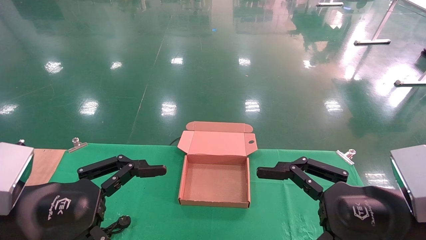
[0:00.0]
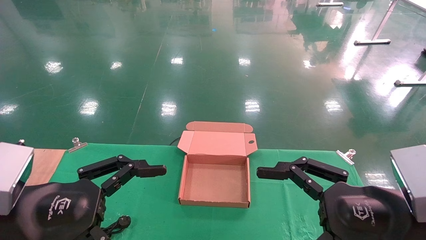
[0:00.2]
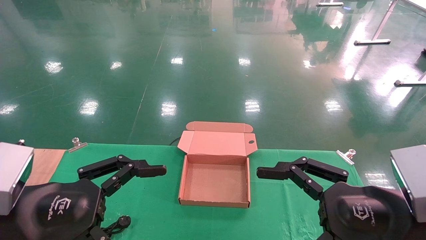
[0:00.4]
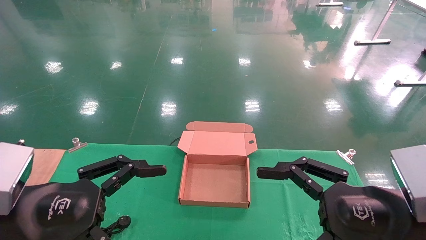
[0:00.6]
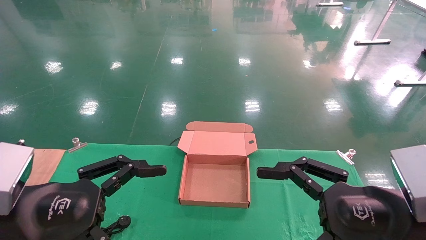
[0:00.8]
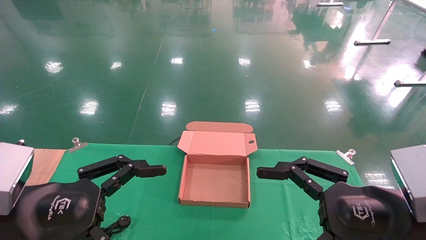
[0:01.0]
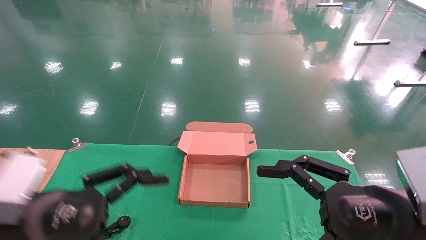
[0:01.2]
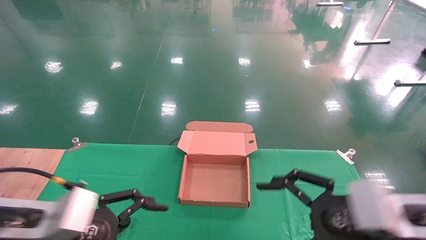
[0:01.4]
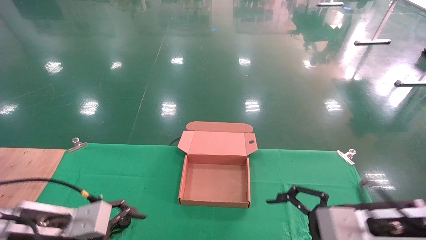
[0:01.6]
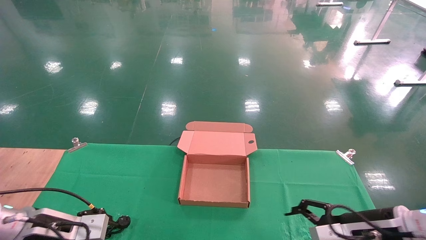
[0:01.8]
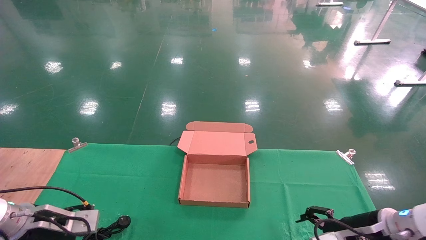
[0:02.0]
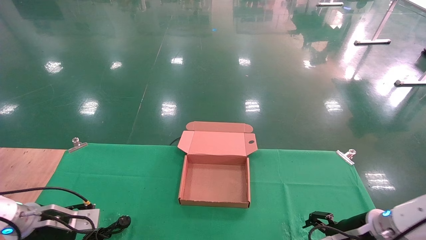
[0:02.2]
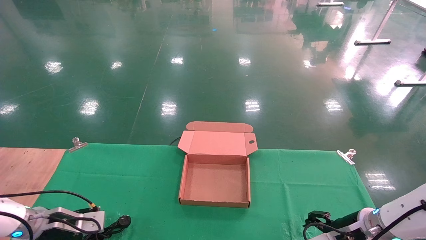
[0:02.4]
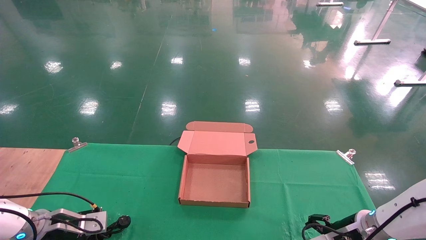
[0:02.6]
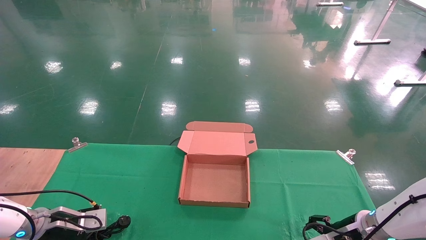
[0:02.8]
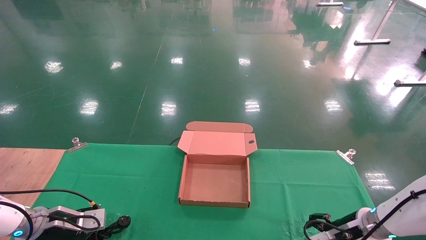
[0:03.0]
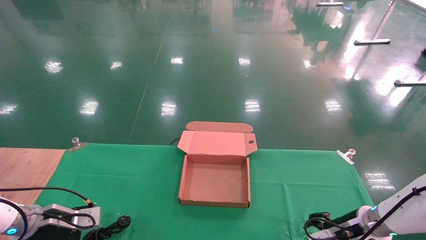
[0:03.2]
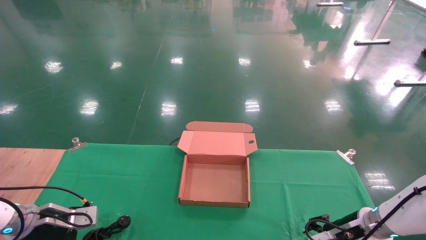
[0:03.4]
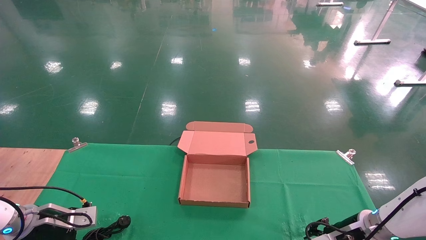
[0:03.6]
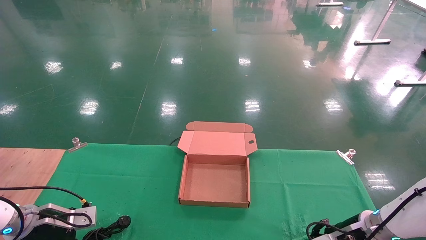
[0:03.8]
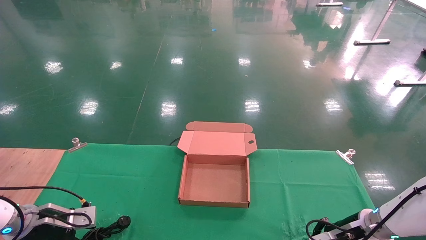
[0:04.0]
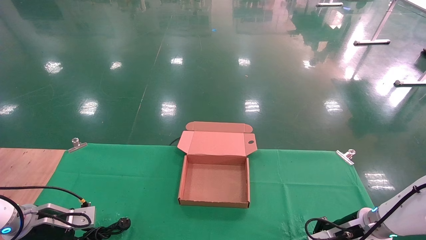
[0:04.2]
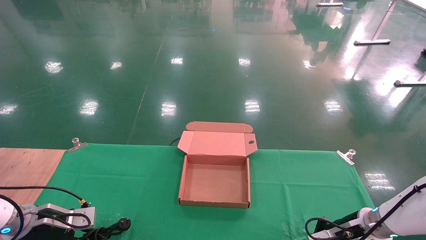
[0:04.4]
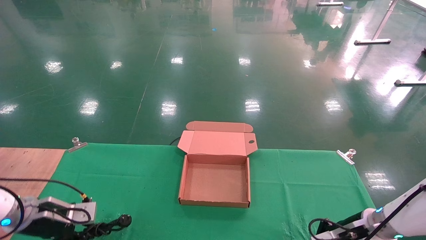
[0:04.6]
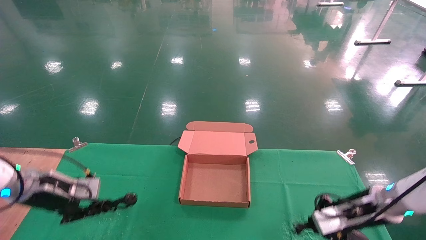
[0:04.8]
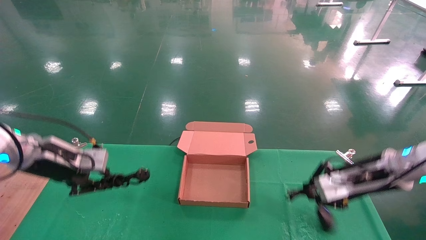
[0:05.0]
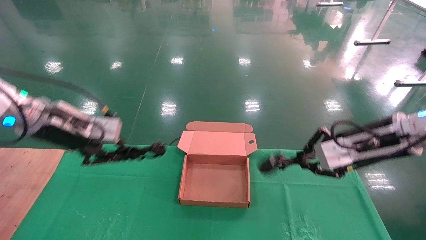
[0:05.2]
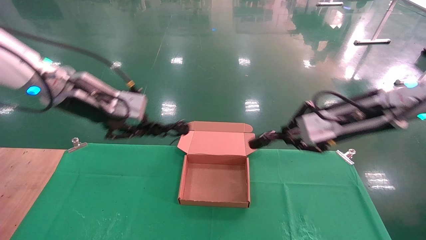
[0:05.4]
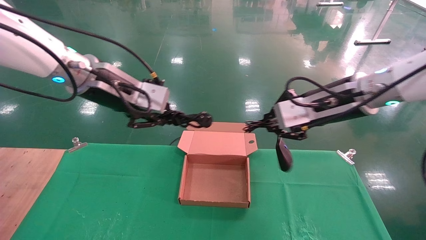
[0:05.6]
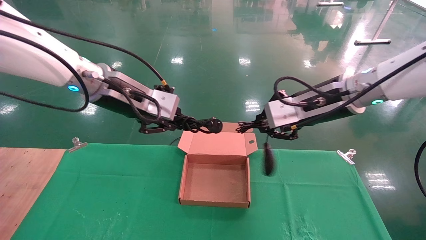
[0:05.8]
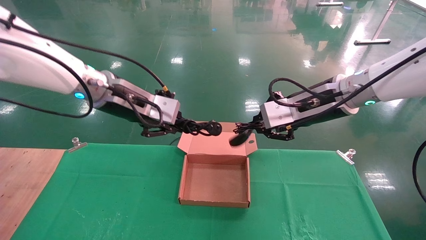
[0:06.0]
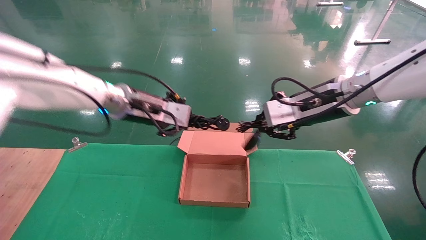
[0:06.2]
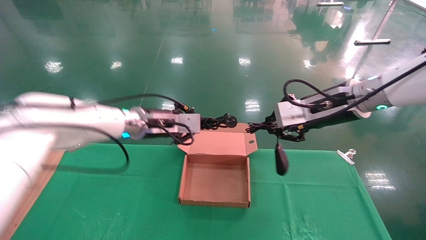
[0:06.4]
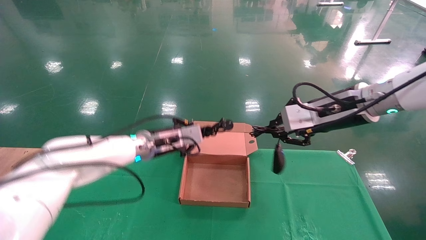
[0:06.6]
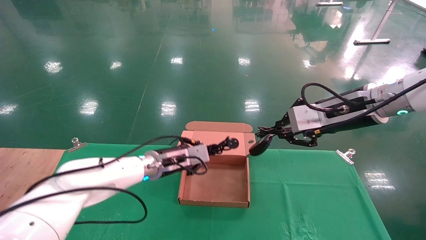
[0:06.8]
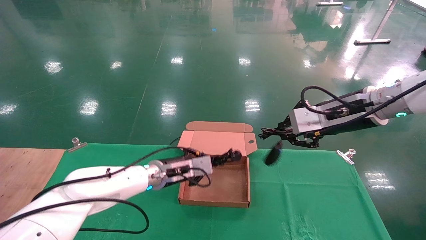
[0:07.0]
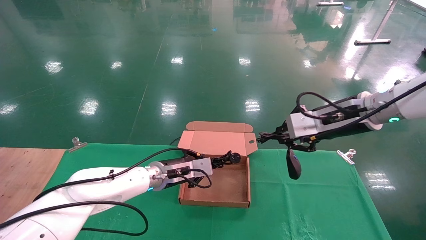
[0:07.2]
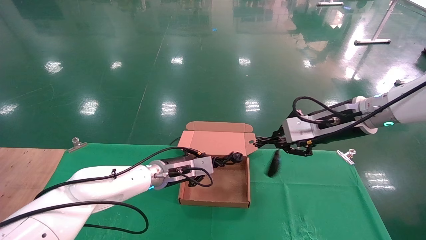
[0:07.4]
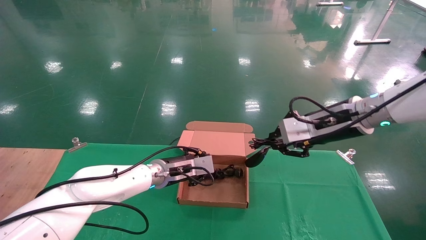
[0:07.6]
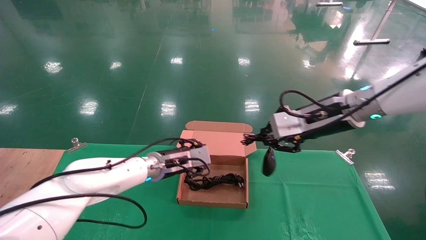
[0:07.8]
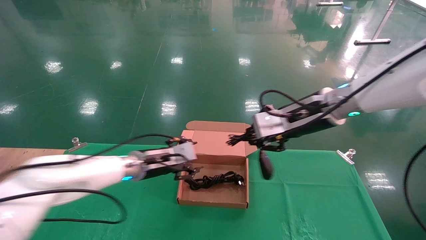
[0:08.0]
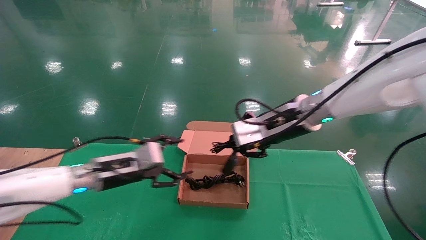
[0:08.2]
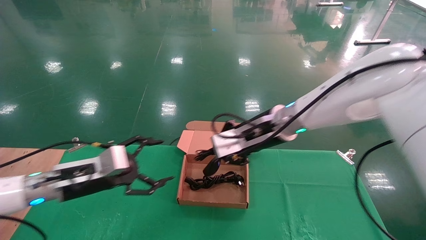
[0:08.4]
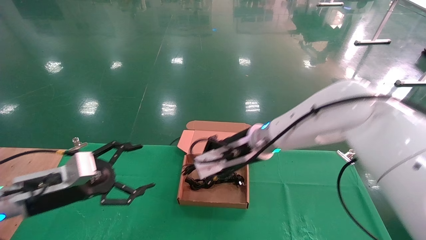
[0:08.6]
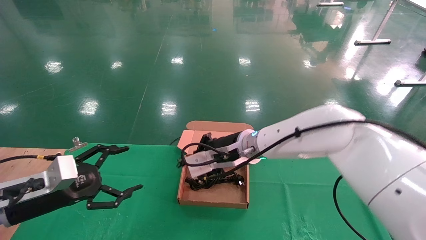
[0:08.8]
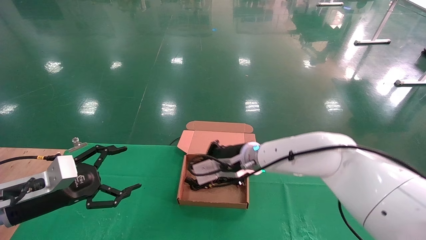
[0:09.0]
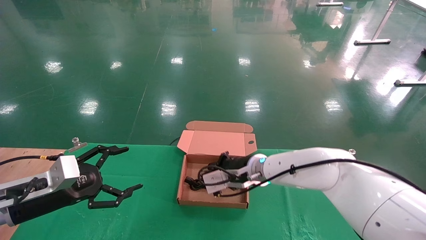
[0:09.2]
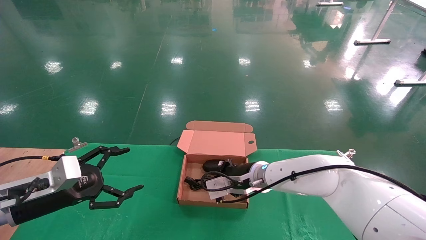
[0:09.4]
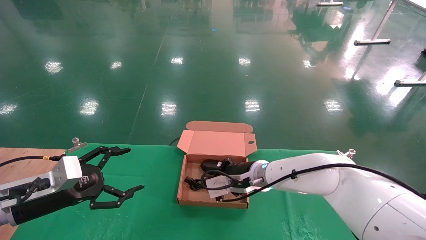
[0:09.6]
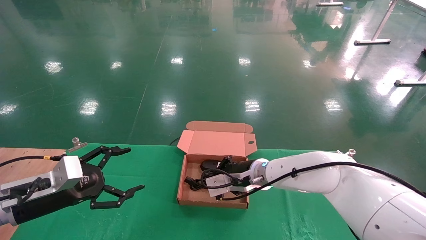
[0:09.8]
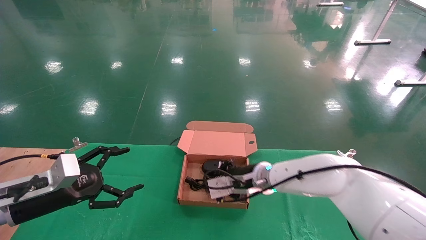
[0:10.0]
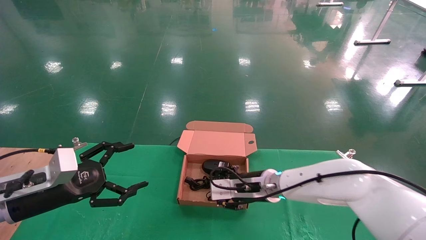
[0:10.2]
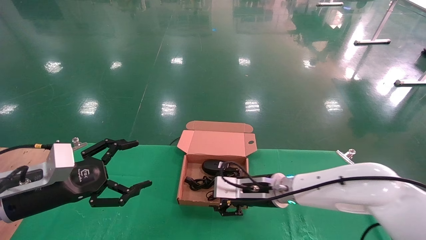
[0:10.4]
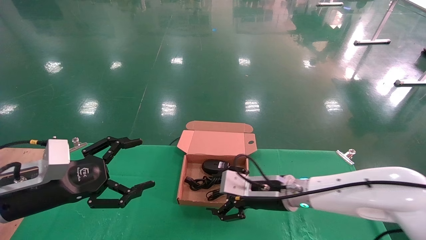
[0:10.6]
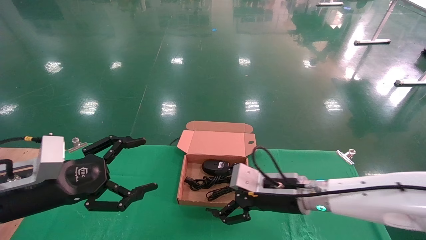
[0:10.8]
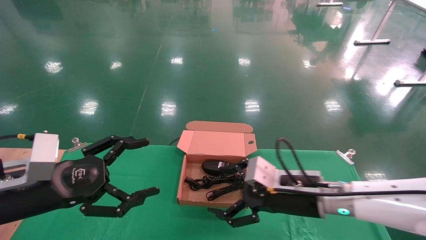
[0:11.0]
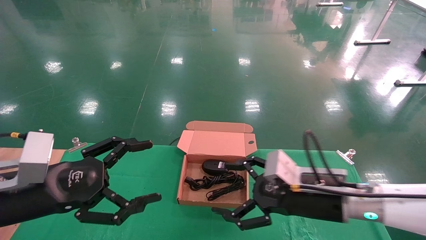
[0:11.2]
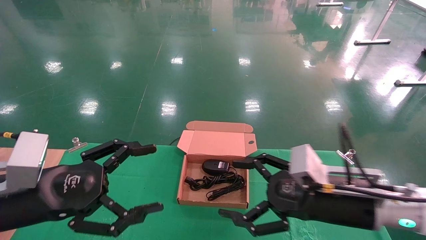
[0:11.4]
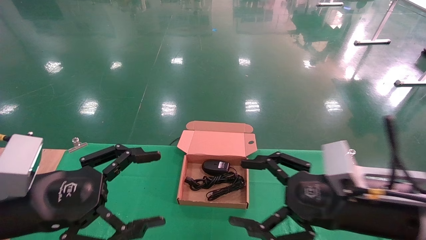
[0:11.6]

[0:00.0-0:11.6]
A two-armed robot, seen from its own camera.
Step, 0:01.2 to 0:04.2: Grab and lift both the mouse and power cord from the accessory packaging area at the same time.
Step, 0:04.4 to 0:08.8: Place the mouse and power cord into the box.
0:00.0 to 0:01.4: The left gripper shifts by approximately 5 cm.
0:01.4 to 0:02.8: The right gripper travels forward and downward by some 20 cm. Meanwhile the left gripper shifts roughly 25 cm forward, downward and to the left.
0:02.8 to 0:04.4: The left gripper closes, while the right gripper closes its fingers.
0:04.4 to 0:05.8: The left gripper goes approximately 35 cm upward and to the right; the right gripper shifts roughly 30 cm upward.
0:05.8 to 0:07.2: The right gripper moves roughly 5 cm. The left gripper heads downward and forward, covering approximately 25 cm.
0:07.2 to 0:08.8: The left gripper travels to the left and backward by roughly 25 cm, and opens. The right gripper shifts about 20 cm to the left and downward.
0:08.8 to 0:10.2: The right gripper travels downward by some 10 cm, and opens.
0:10.2 to 0:11.6: The left gripper heads backward, upward and to the right, covering about 15 cm, while the right gripper shifts approximately 25 cm backward, to the right and upward, and opens its fingers.

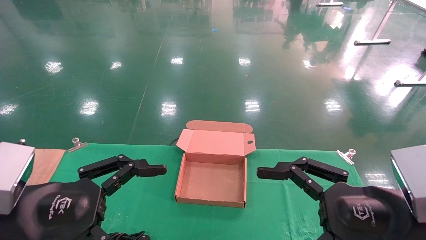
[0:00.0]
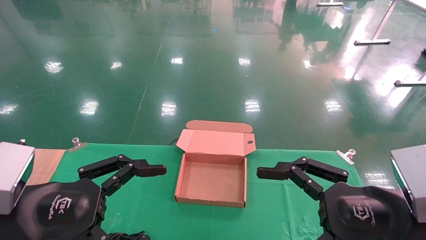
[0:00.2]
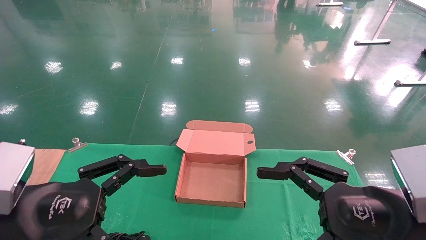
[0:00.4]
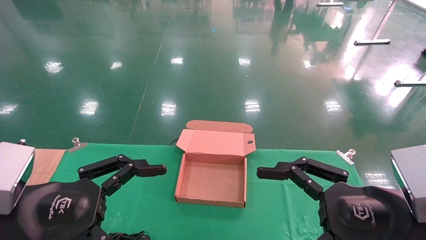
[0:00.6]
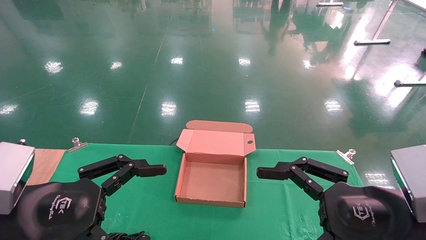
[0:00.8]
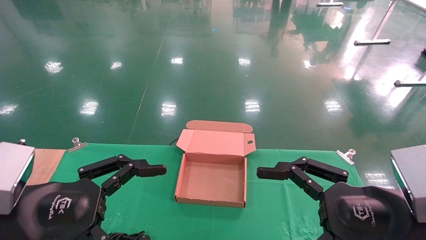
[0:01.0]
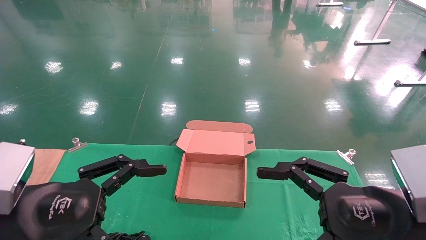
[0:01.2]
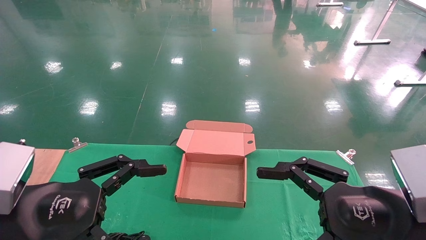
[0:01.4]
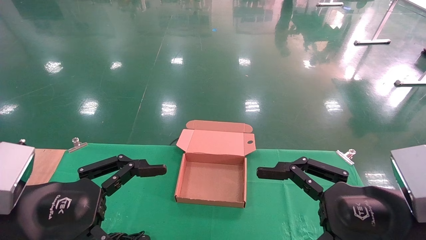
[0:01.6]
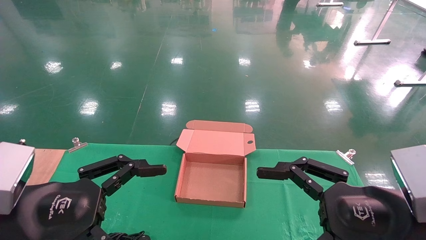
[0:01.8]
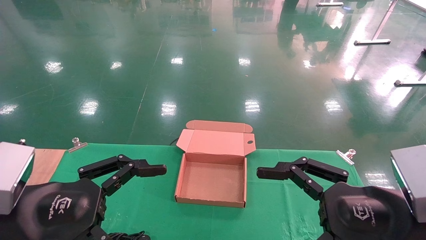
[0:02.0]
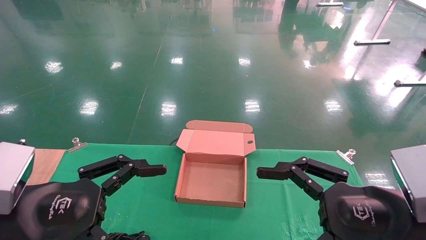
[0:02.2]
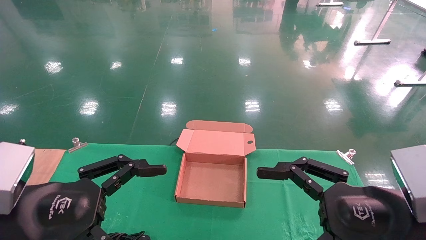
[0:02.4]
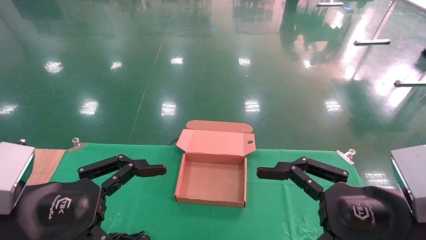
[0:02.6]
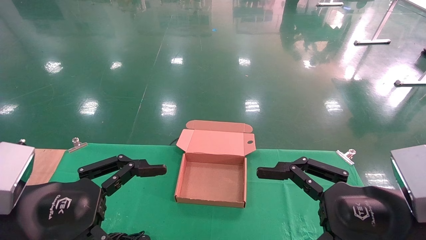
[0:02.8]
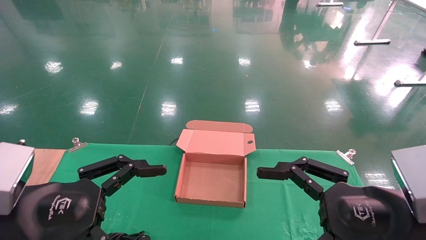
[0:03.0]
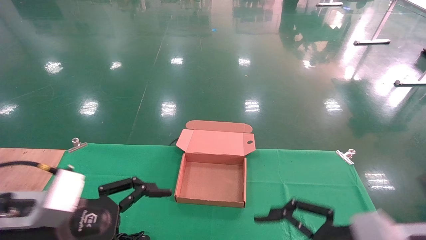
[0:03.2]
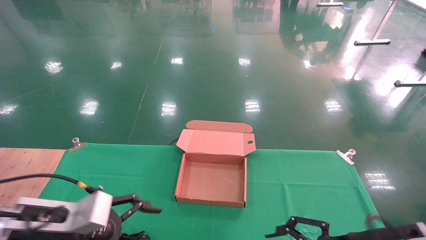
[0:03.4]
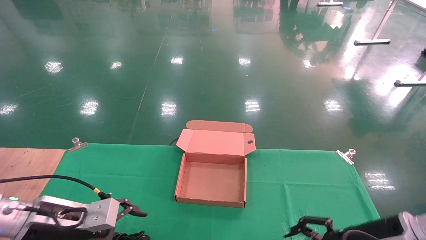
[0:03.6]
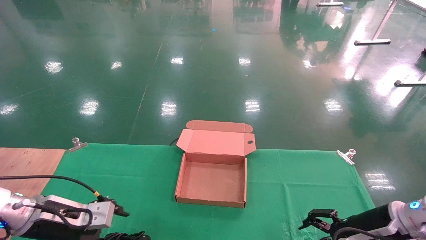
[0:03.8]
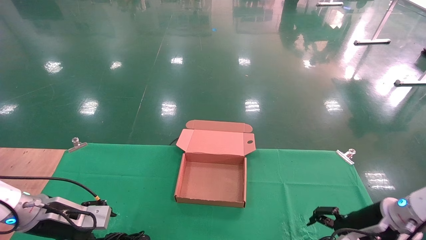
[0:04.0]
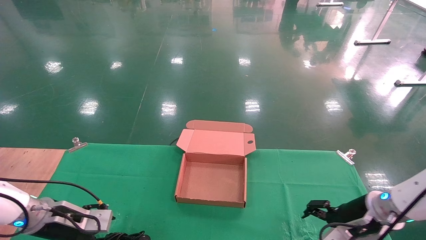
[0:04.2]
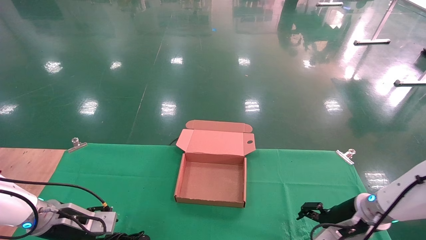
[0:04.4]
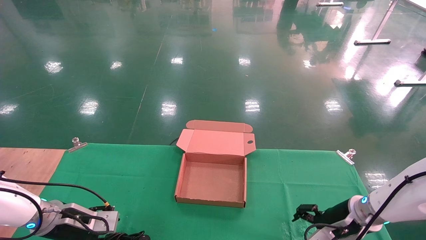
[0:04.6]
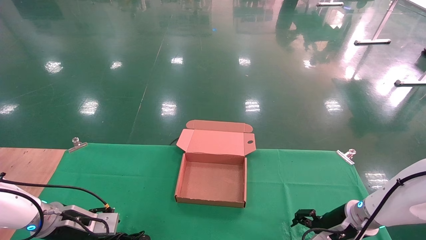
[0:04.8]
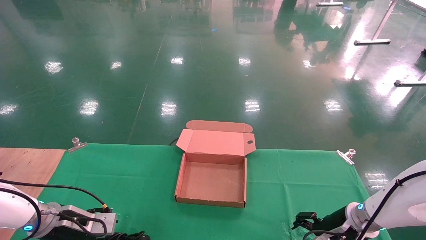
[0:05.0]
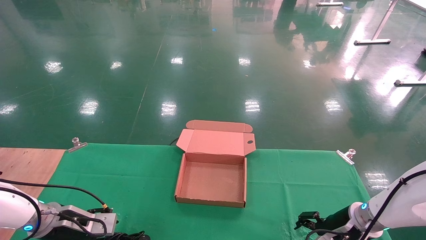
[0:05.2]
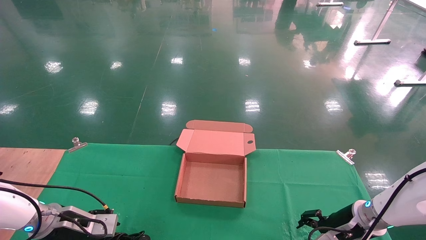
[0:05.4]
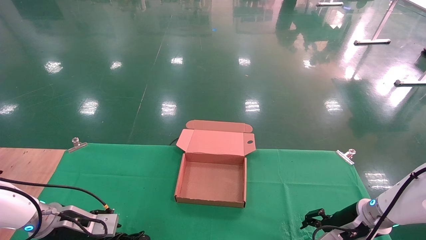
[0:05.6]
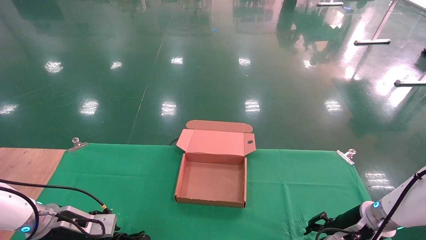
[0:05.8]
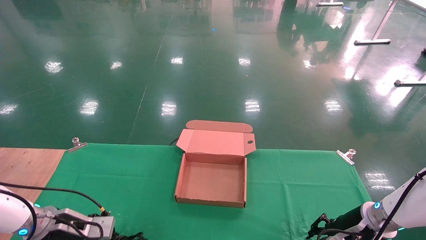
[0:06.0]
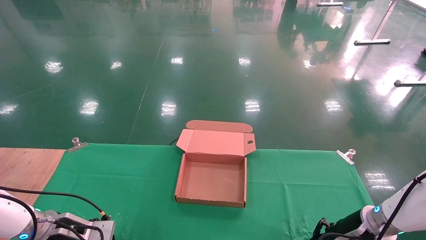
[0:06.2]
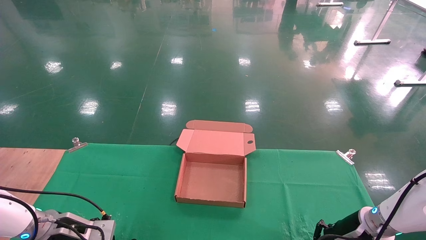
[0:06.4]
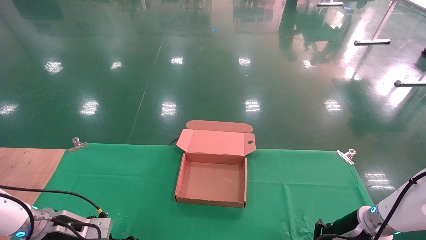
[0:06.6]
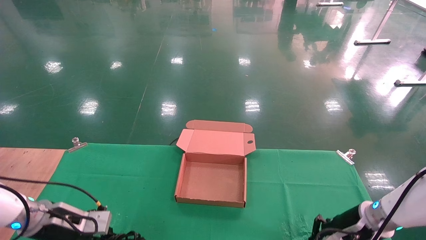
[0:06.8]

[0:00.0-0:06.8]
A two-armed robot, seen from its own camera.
0:00.0 to 0:02.8: Both grippers stay about where they are.
0:02.8 to 0:04.0: The left gripper moves forward, downward and to the left, roughly 25 cm, while the right gripper moves forward and downward, approximately 20 cm.
0:04.0 to 0:05.4: The right gripper shifts some 5 cm forward and downward.
0:05.4 to 0:06.8: The right gripper closes up, while the left gripper closes.
